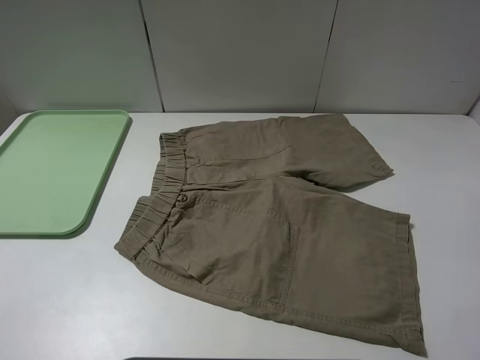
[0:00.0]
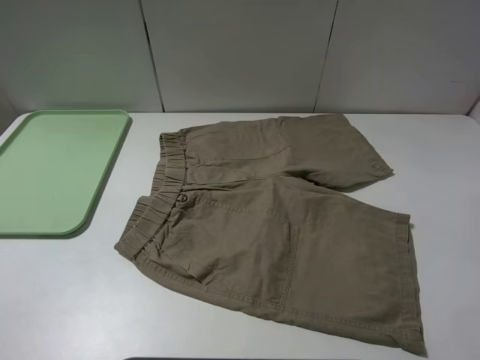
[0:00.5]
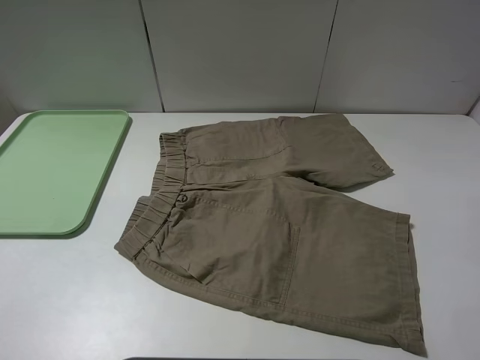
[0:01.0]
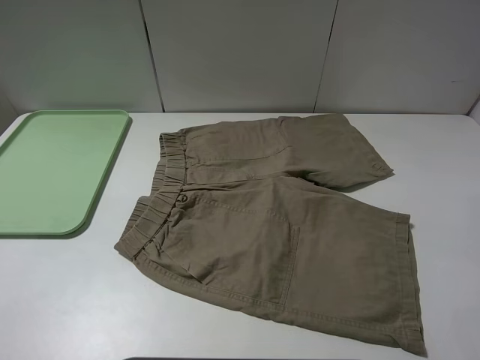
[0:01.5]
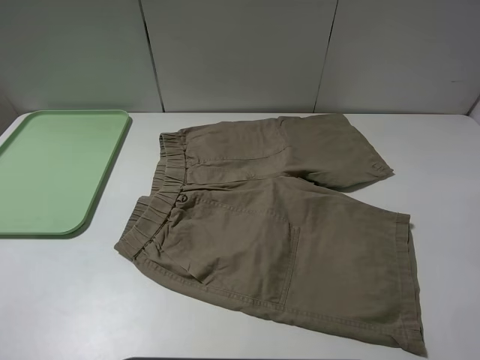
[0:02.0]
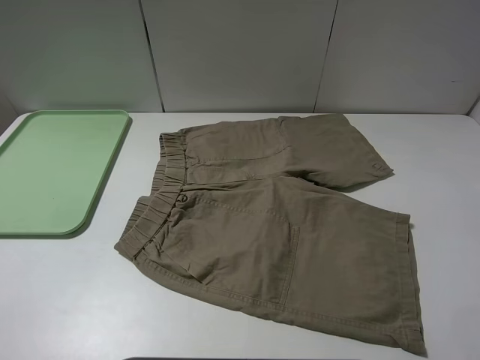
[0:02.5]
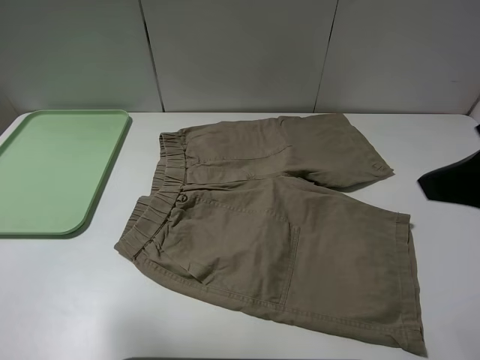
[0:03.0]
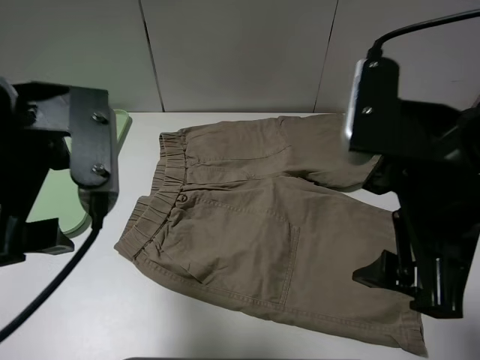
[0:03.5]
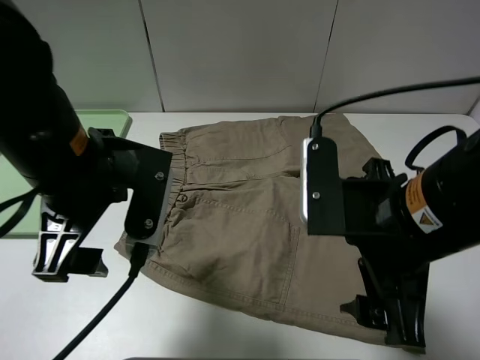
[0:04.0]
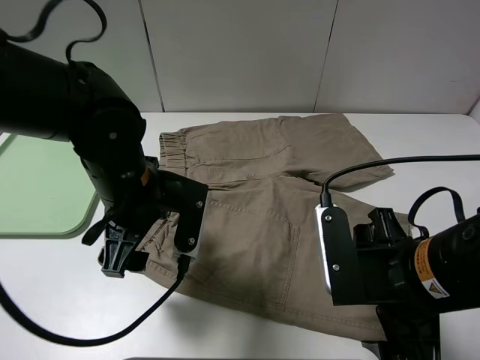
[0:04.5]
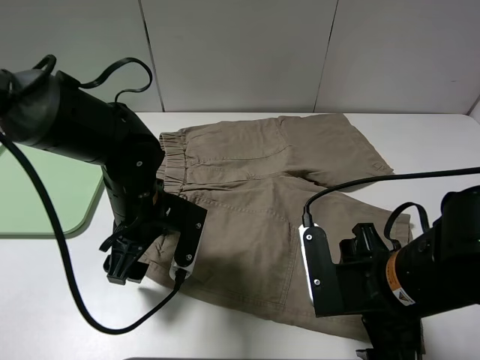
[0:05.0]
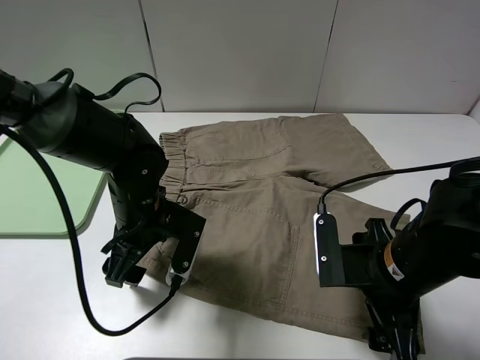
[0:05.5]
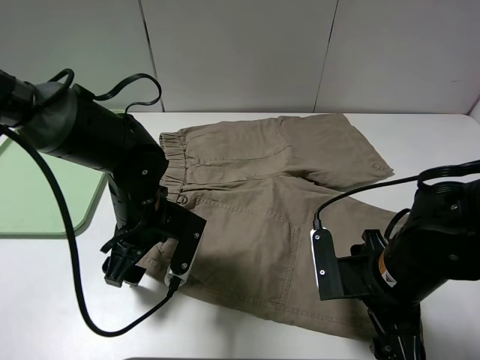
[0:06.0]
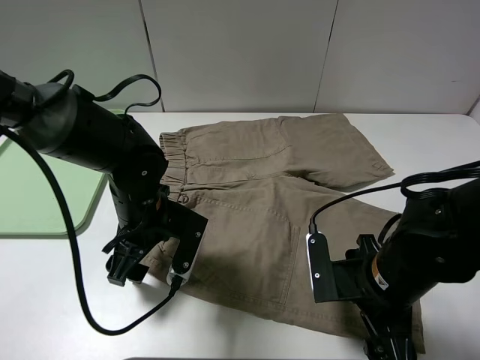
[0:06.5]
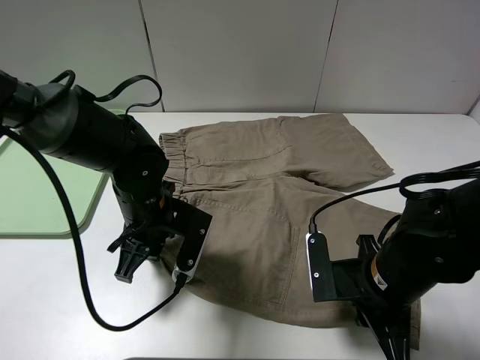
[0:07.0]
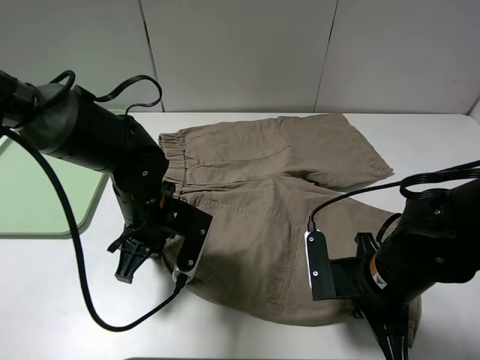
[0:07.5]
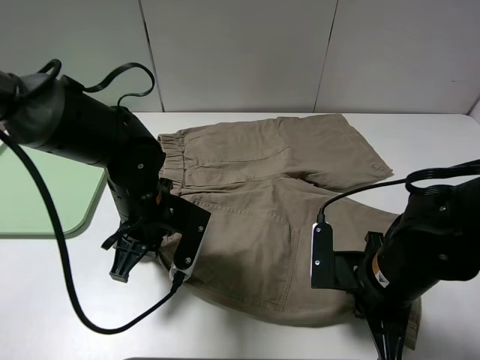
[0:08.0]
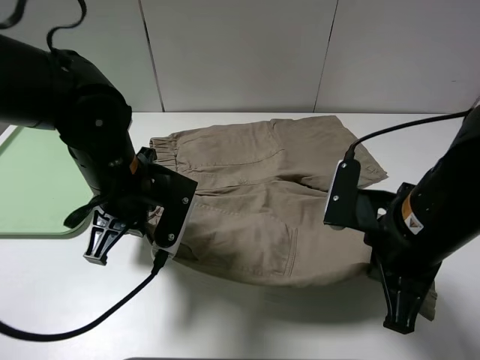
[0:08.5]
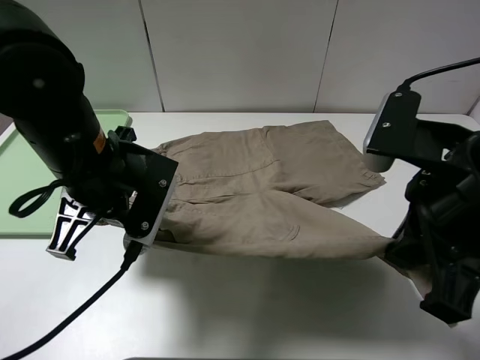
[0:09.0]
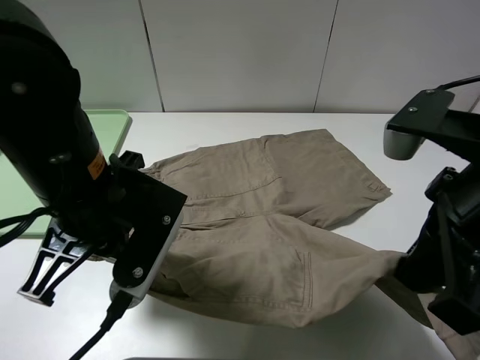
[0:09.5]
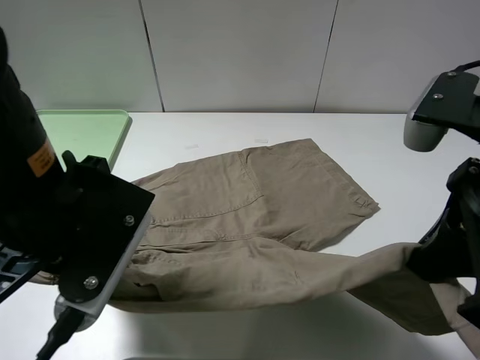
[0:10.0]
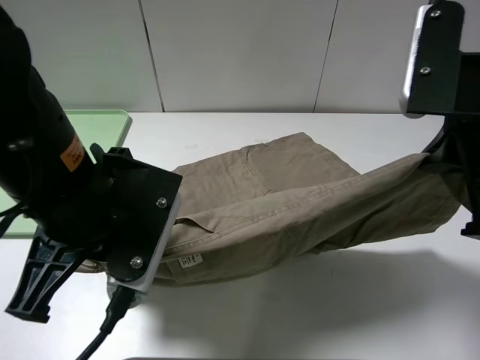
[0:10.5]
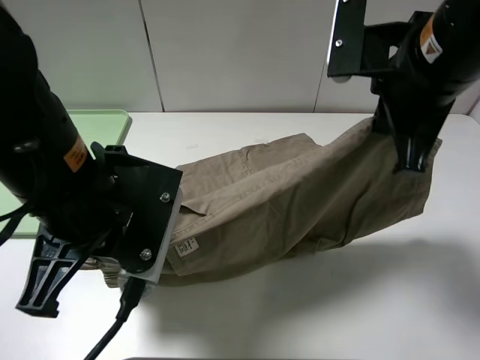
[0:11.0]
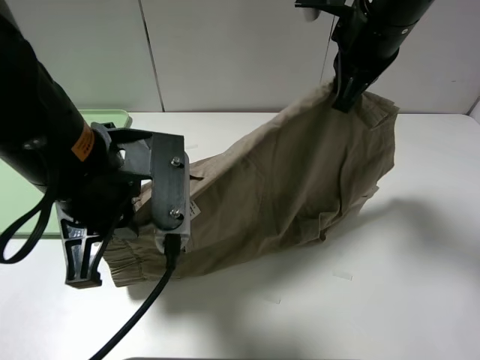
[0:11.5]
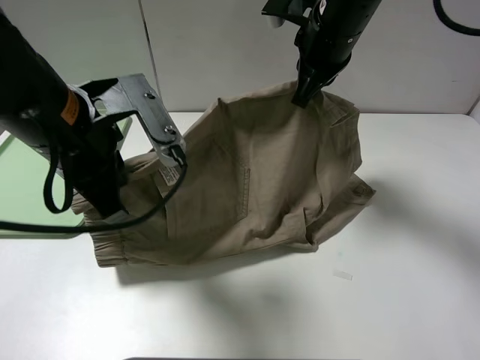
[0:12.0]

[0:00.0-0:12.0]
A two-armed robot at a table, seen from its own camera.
Task of the whole recording: fold the khaki jeans in half with two grippers, then fold them in half again, and use the left claw to place the folded fold khaki jeans on the tray.
Step, 0:00.0 to 0:07.0: Grasp the khaki trousers with the left gripper.
0:00.0 to 0:02.0: Both grippers stay put.
0:02.0 to 0:04.0: The left gripper goes roughly 25 cm forward and to the right, while the right gripper is displaced to the left, forward and downward by roughly 20 cm.
0:04.0 to 0:06.0: The two grippers go some 15 cm downward.
0:06.0 to 0:08.0: The left gripper closes up. The right gripper closes.
0:08.0 to 0:10.0: The left gripper goes approximately 15 cm upward and backward. Meanwhile the right gripper travels upward by about 20 cm.
0:10.0 to 0:12.0: The right gripper moves forward, approximately 25 cm. The left gripper heads forward, covering roughly 5 cm.

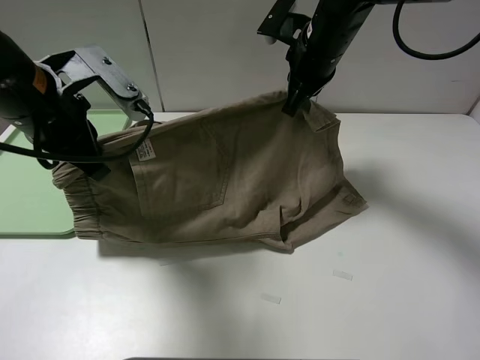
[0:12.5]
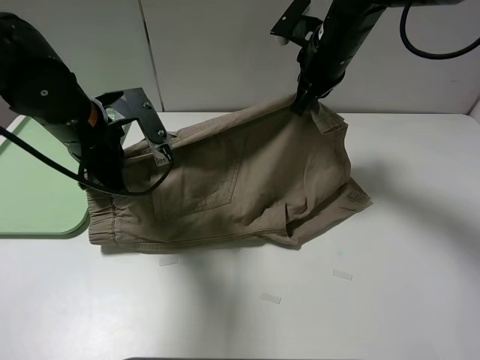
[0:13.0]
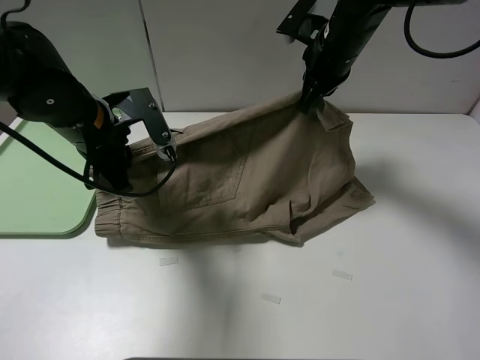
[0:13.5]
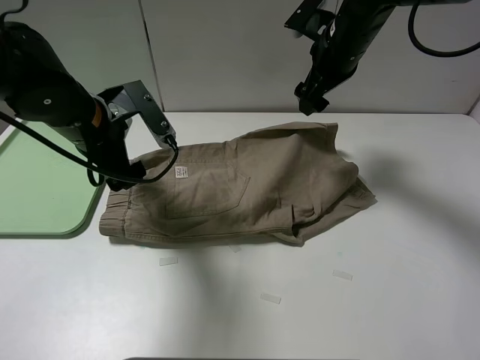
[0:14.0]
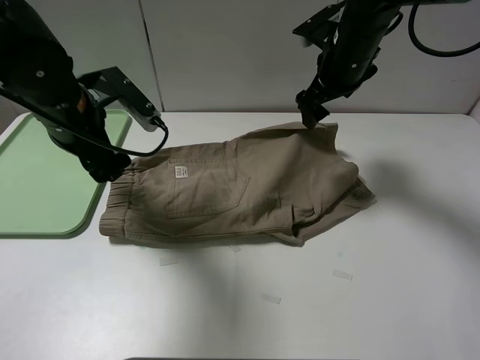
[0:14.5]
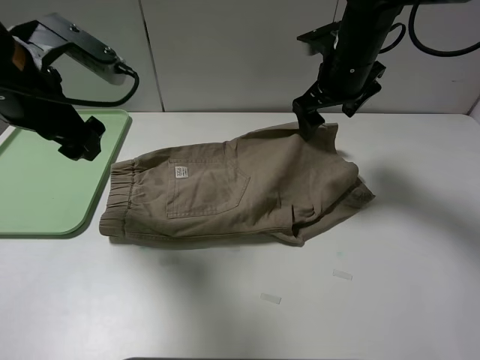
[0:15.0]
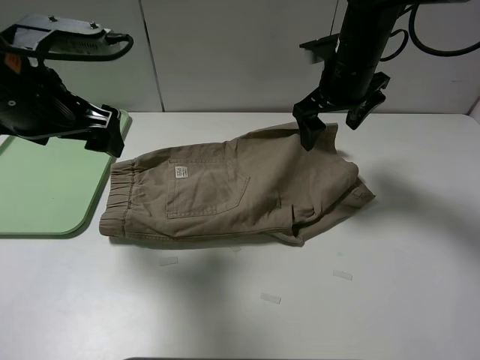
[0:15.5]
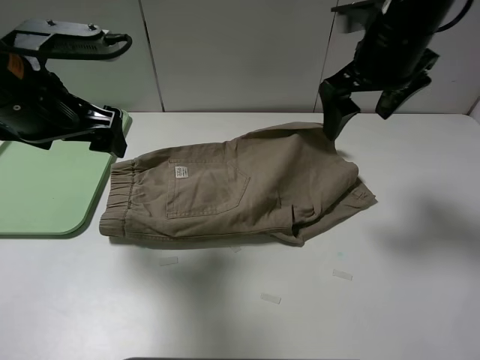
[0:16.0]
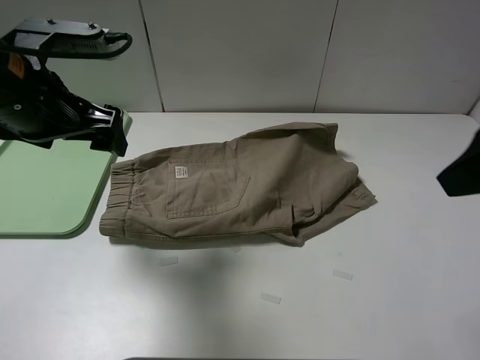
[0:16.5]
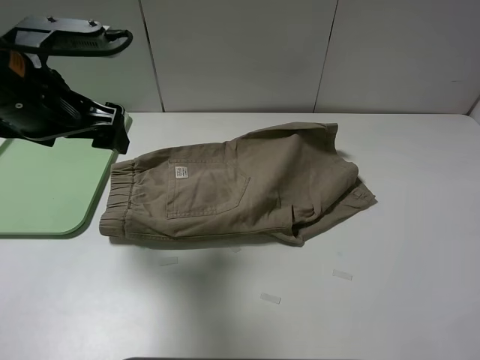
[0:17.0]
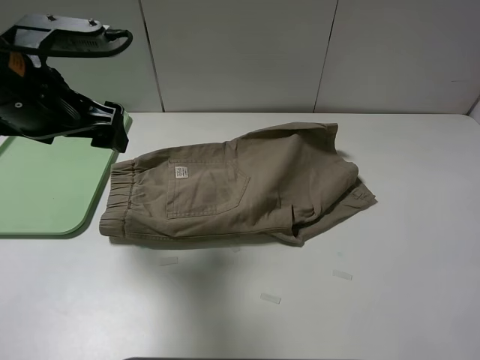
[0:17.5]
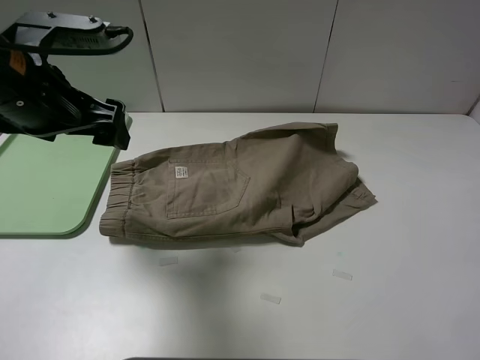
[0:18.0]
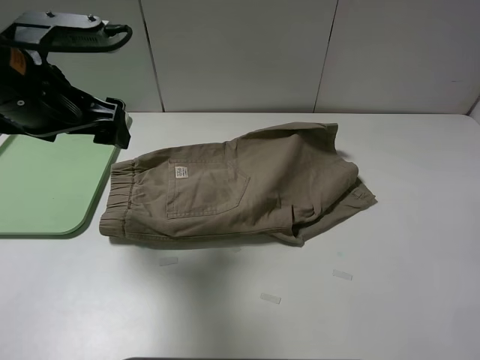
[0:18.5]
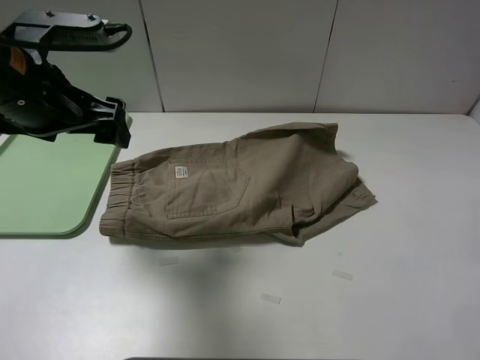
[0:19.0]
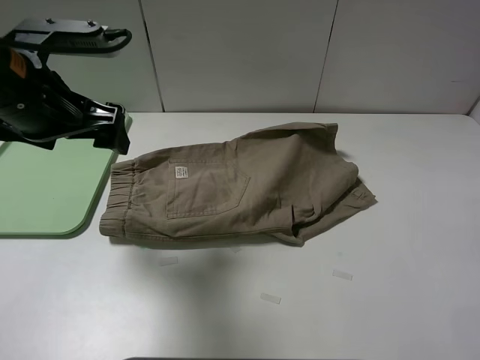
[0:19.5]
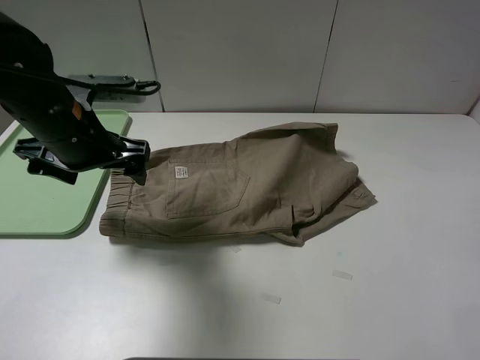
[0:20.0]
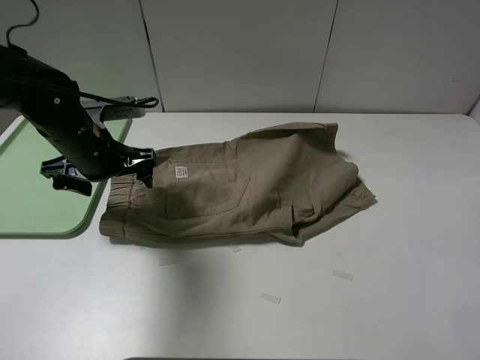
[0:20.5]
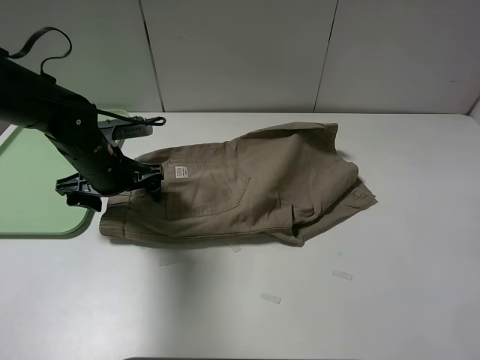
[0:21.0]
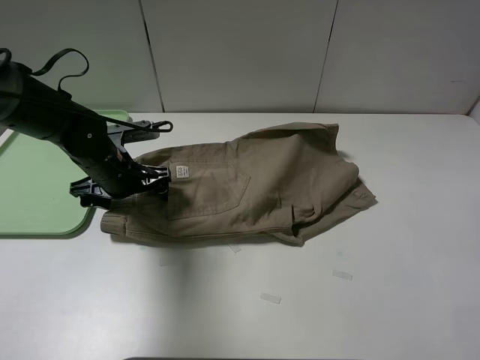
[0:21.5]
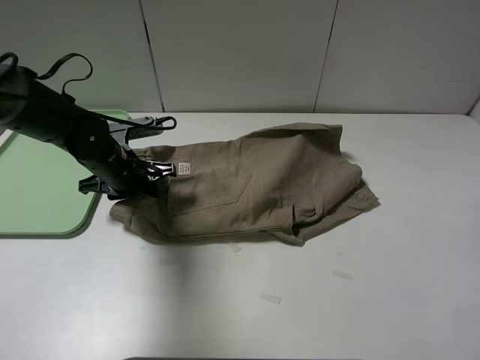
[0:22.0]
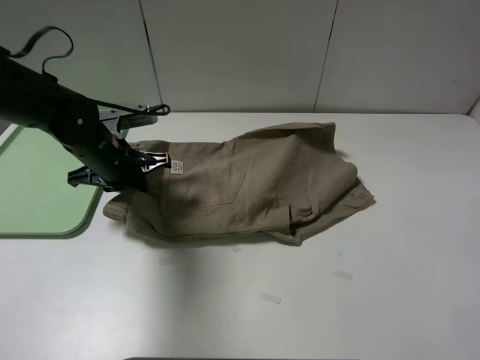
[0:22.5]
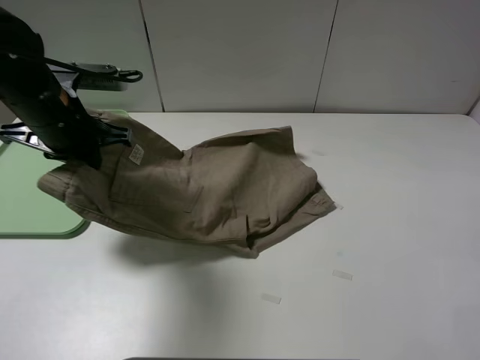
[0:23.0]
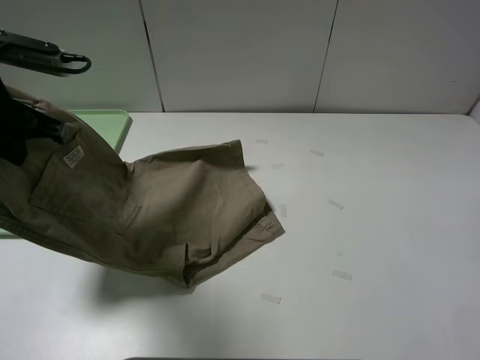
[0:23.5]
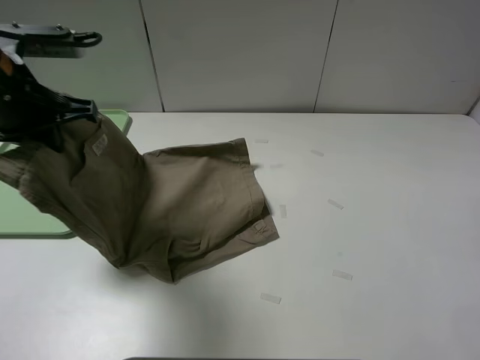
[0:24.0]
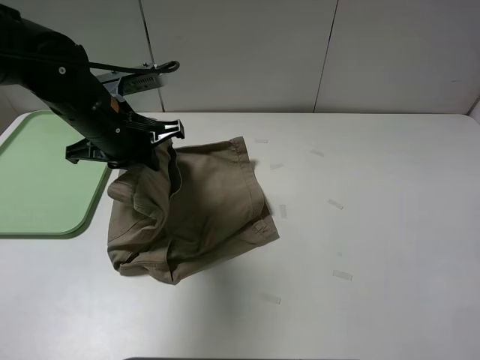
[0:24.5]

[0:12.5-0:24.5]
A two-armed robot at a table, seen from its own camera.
Task of the whole recording: fold the khaki jeans in half with two grippers, then fold them in half again, and use the left claw to place the folded fold khaki jeans on the tray.
Step, 0:14.0 to 0:22.0: Grasp the khaki trousers with the left gripper.
0:12.5 to 0:14.5: The right gripper opens; the left gripper opens.
0:14.5 to 0:16.5: The left gripper heads upward, covering roughly 5 cm. Meanwhile the right gripper goes roughly 30 cm backward and upward.
0:16.5 to 0:18.5: The right gripper goes approximately 15 cm backward and downward.
0:18.5 to 0:20.5: The left gripper heads downward and forward, covering approximately 15 cm.
0:20.5 to 0:22.5: The left gripper closes.
0:22.5 to 0:24.5: The left gripper is displaced upward by roughly 5 cm.

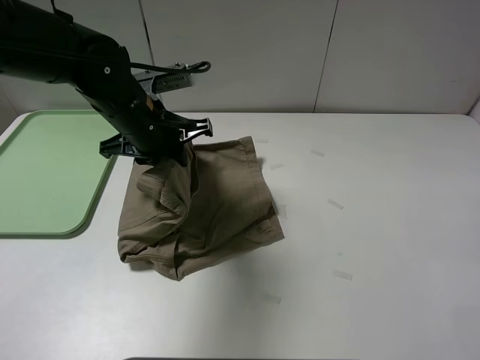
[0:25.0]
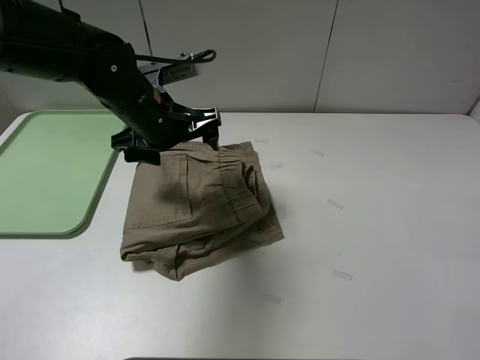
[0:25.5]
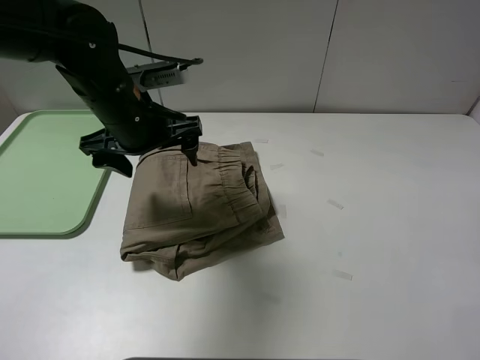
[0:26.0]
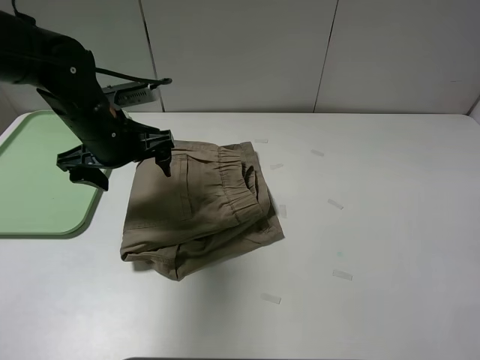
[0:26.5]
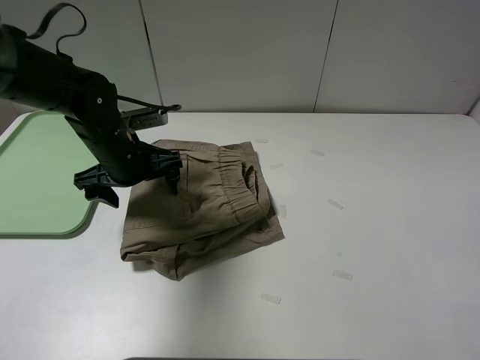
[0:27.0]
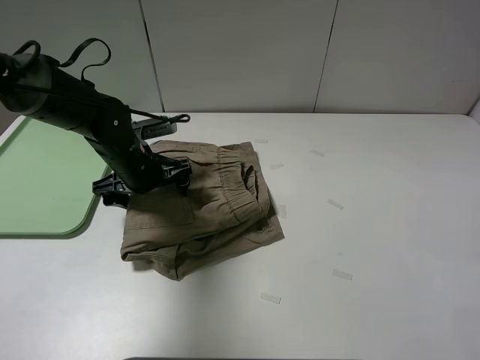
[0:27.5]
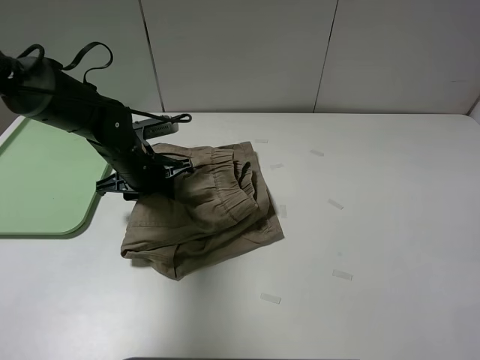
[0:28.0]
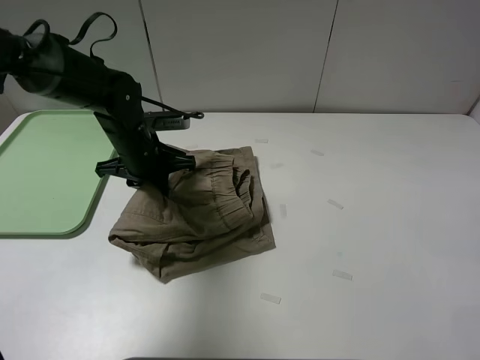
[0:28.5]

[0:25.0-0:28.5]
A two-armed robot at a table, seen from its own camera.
Task of the whole recording: fold the khaki jeans in half with two grippers, then fold them in half again, and use the left claw to place the folded fold khaki jeans on the tray.
0:25.0 to 0:27.0: The left gripper travels downward by some 5 cm, and opens its fingers.
0:27.0 to 0:28.5: The left gripper closes.
